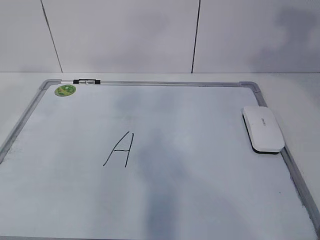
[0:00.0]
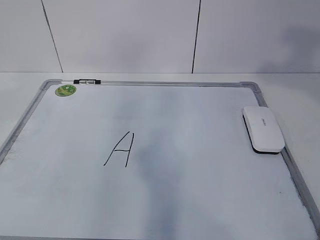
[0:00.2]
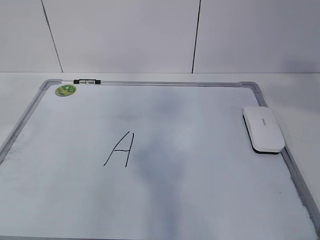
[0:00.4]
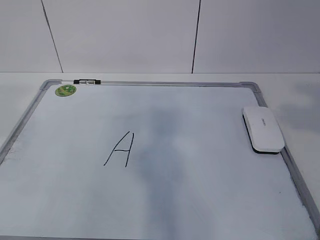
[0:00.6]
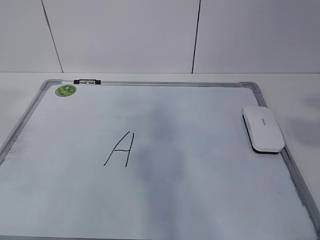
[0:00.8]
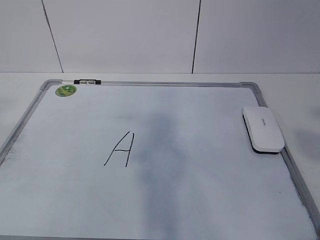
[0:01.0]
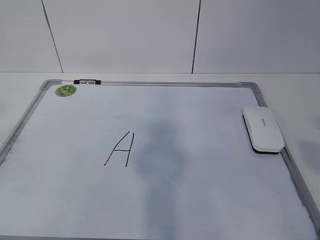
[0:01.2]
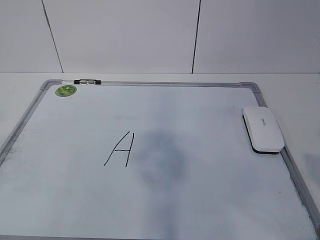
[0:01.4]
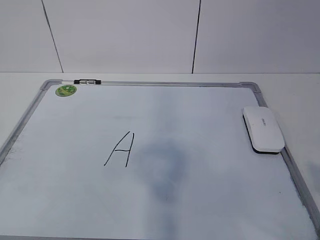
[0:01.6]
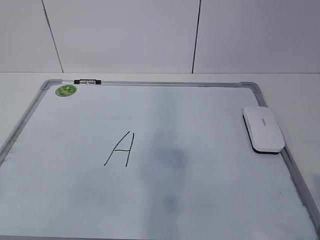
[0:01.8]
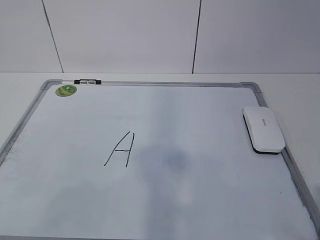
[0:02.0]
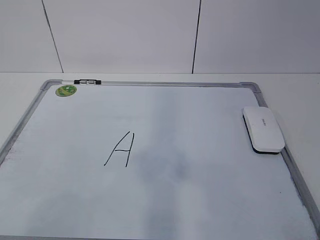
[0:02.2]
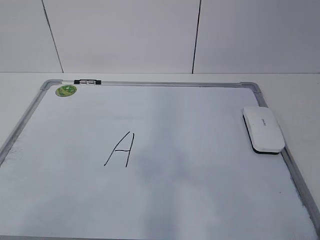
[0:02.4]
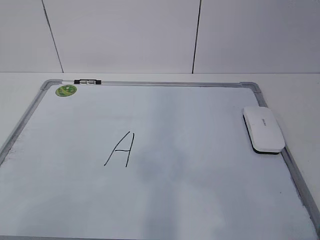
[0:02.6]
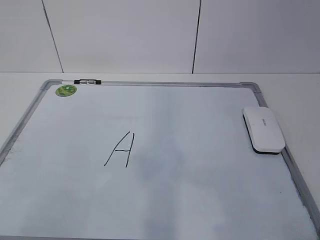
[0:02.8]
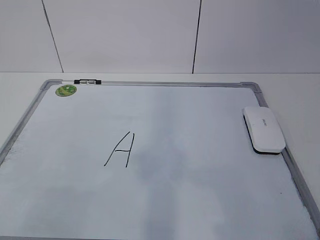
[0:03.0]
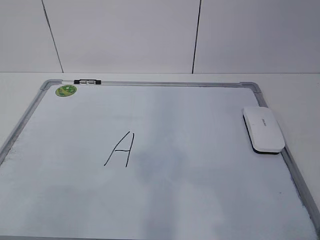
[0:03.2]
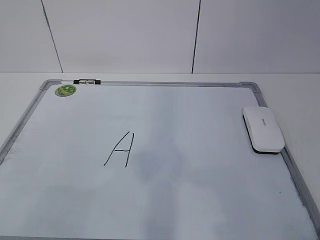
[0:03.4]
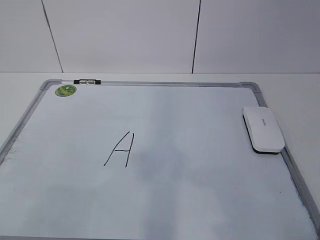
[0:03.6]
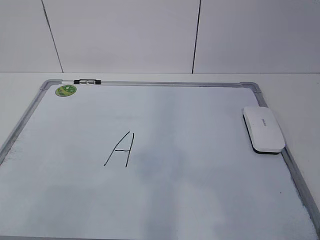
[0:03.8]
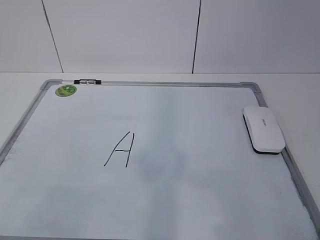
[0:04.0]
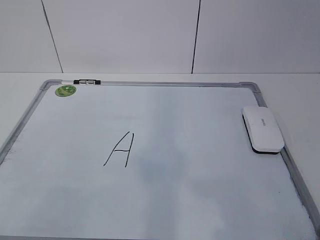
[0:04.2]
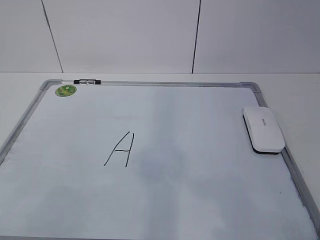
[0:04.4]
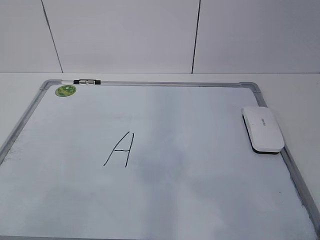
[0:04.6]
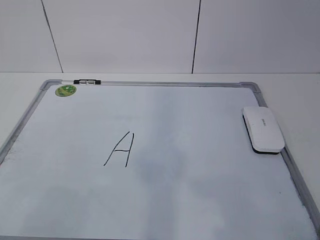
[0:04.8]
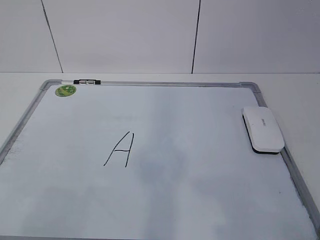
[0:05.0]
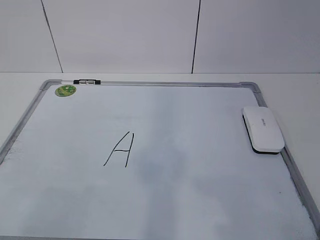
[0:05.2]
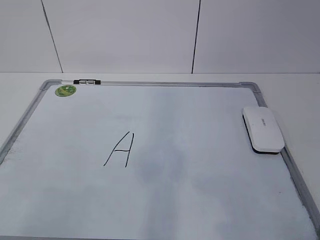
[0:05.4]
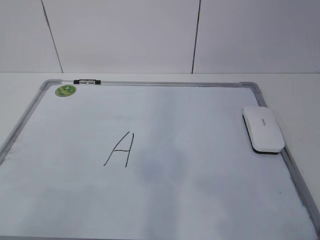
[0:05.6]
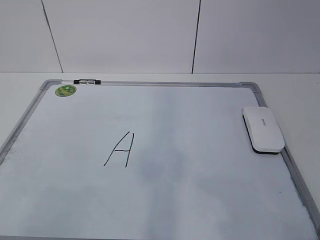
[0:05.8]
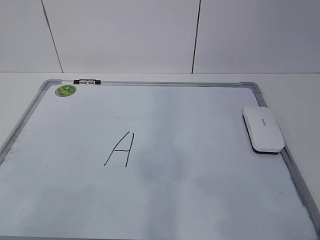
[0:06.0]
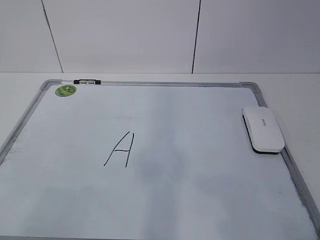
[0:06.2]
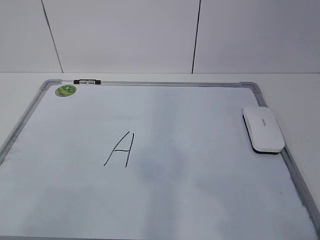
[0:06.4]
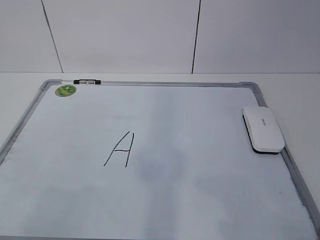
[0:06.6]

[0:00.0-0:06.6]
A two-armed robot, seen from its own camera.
Task of the whole recording: pick up the eraser on the blackboard and erase the letter "a".
0:00.0 to 0:01.6: The left gripper goes roughly 20 cm backward. Meanwhile the right gripper moves backward and downward, approximately 25 cm.
0:01.6 to 0:03.2: Both grippers travel together downward, about 10 cm.

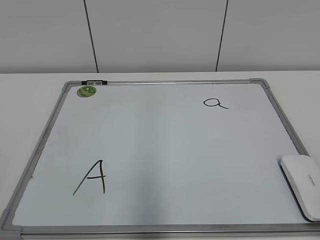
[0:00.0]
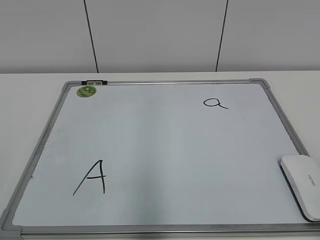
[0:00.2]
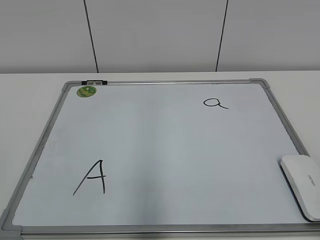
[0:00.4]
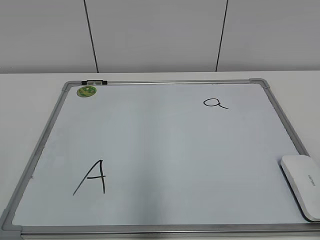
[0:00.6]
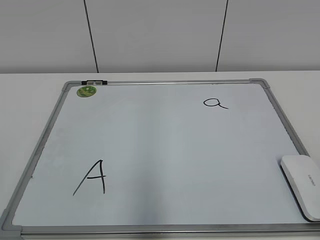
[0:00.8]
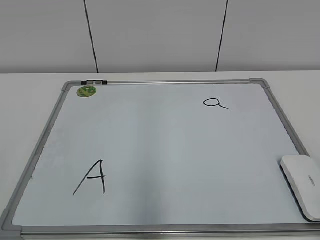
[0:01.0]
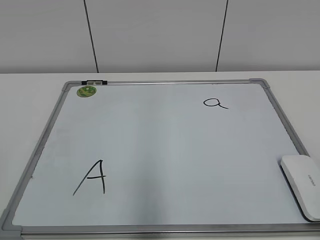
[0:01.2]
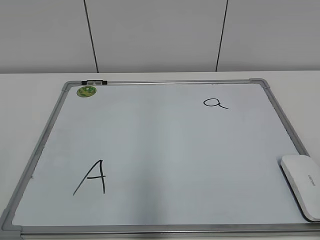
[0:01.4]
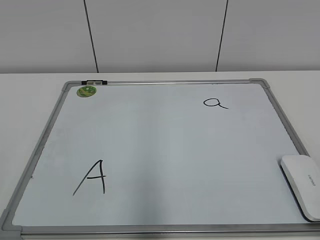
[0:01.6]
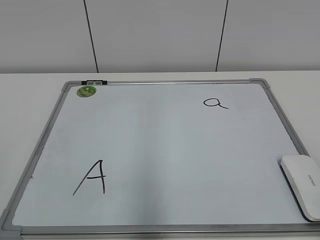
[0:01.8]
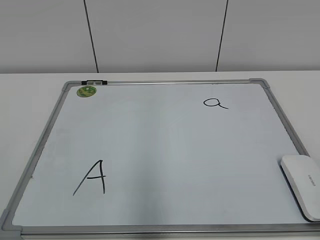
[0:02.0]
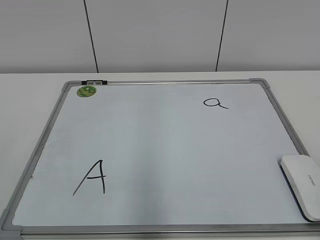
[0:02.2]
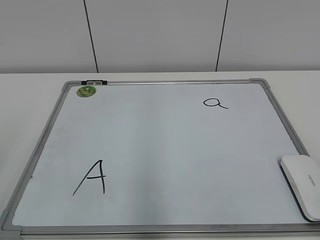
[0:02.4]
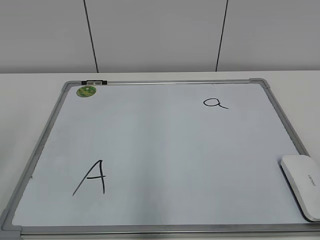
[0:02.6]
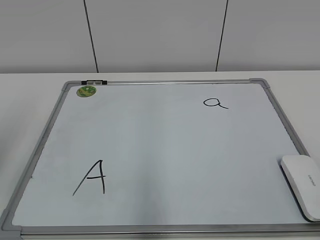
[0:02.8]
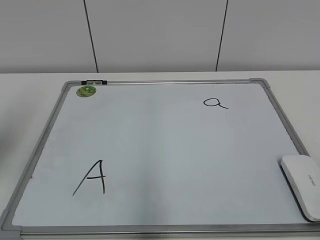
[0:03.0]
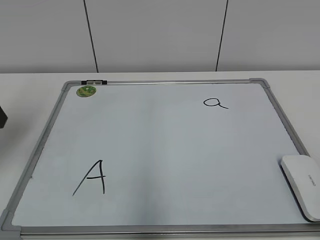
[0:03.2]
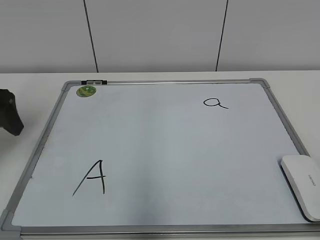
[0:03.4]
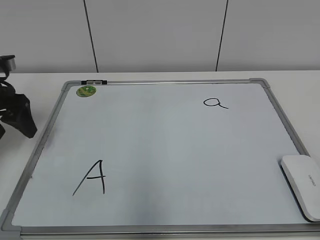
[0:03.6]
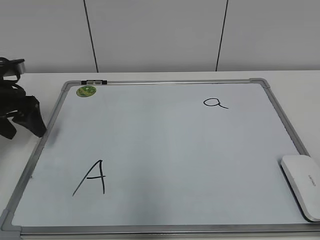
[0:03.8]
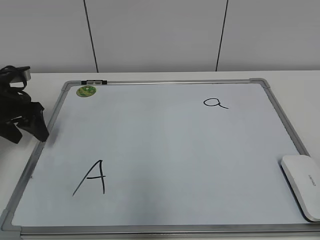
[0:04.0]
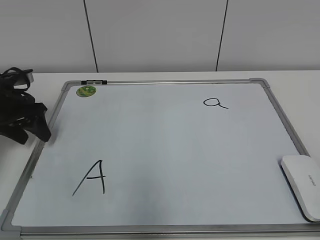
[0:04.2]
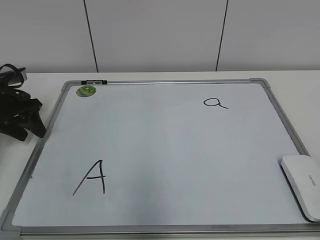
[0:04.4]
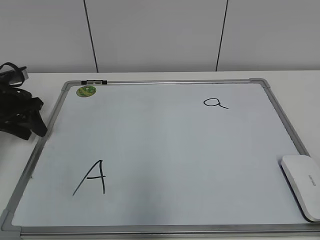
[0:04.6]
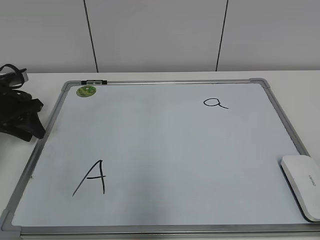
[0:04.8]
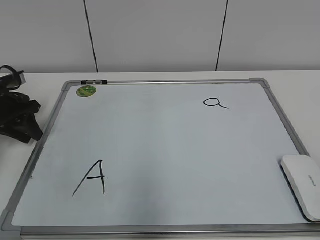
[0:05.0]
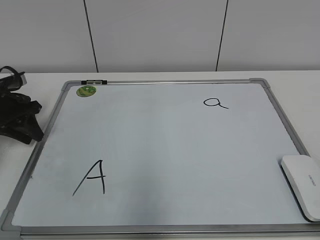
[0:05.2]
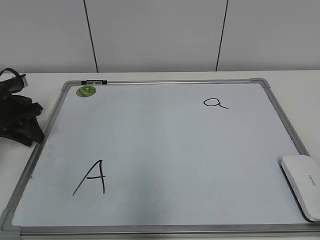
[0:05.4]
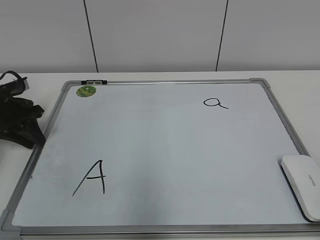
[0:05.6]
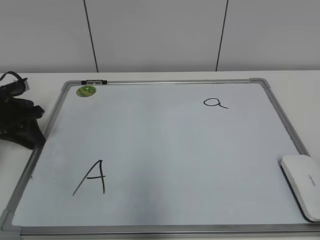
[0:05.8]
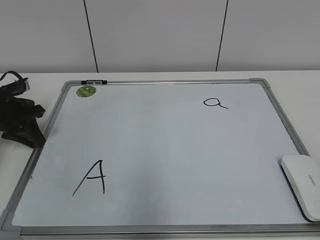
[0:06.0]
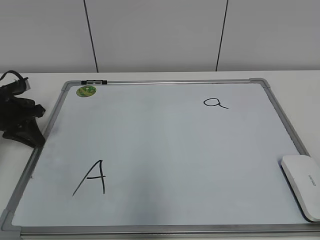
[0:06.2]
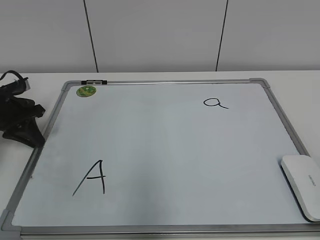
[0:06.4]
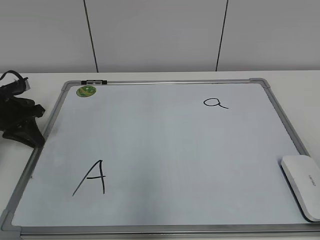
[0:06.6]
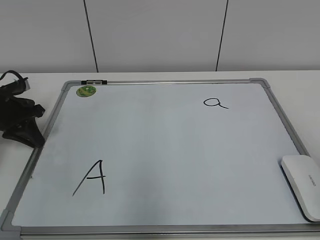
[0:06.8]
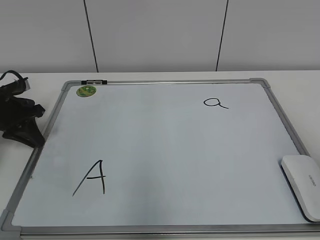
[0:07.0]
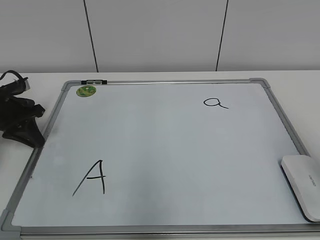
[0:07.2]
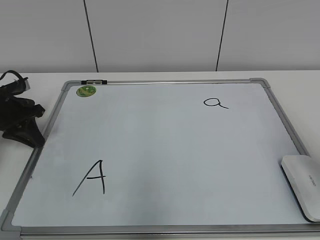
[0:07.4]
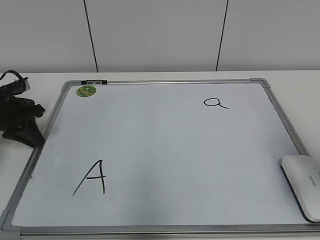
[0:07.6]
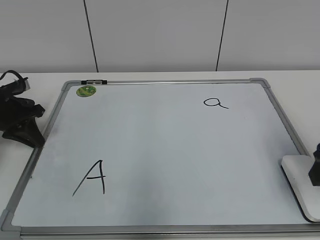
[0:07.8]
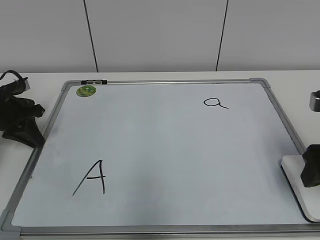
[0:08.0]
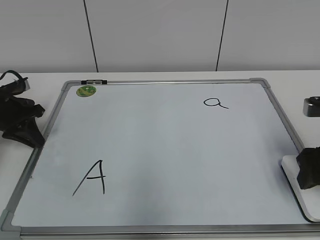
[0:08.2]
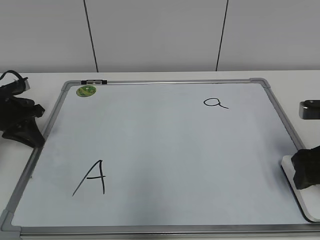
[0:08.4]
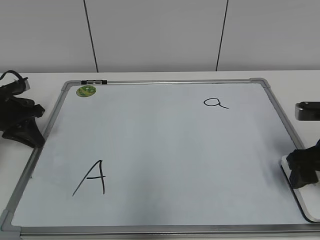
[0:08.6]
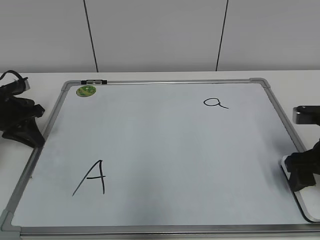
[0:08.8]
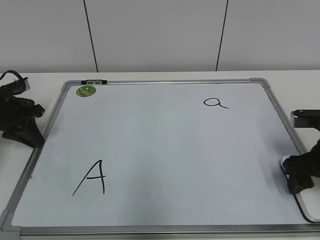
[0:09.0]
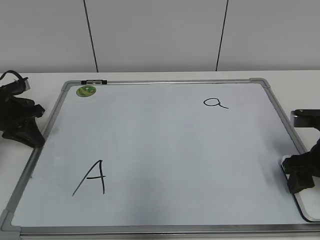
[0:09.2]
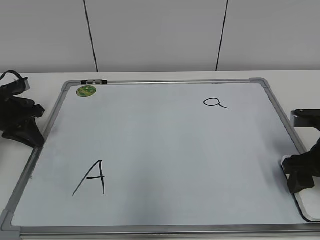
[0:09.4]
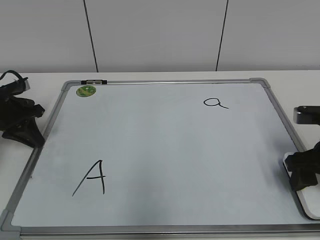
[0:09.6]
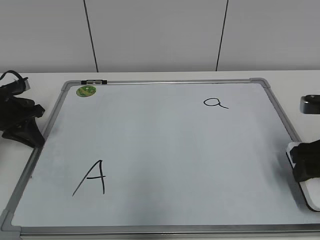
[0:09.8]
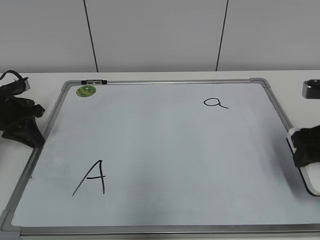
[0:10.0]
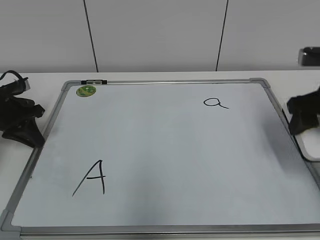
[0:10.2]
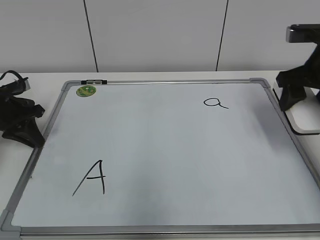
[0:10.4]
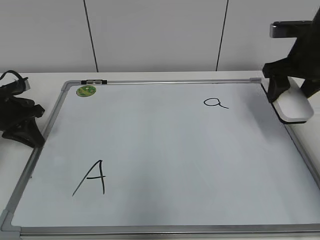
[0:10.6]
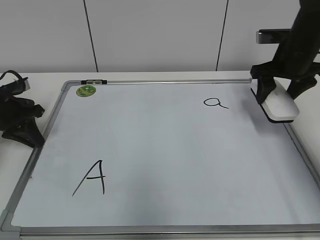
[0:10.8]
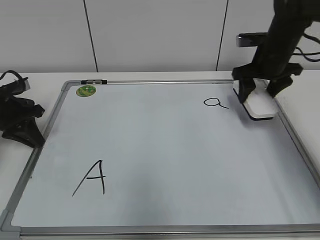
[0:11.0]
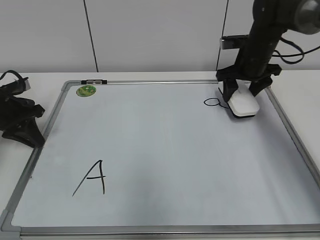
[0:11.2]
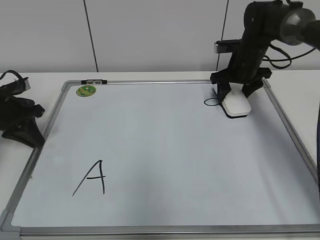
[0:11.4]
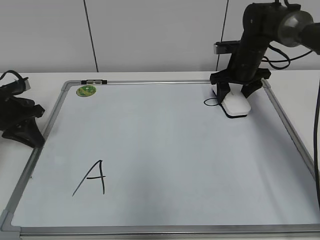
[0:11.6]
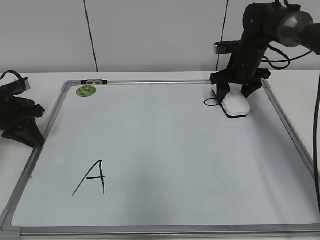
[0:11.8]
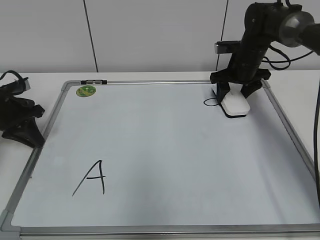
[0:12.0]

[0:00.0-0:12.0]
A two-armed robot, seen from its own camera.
Task of the whole recording: pick up the eraser on the blackboard and erase the letter "a".
Step, 0:00.0 to 0:06.6: Hold the drawing board steady with your left hand.
0:01.6 to 0:03.0: The left gripper moves forward, about 25 cm, and opens up.
0:03.0 to 0:04.4: The left gripper travels forward and downward by some 20 cm, and closes up.
0:04.4 to 0:06.0: The left gripper closes its fingers.
0:06.0 to 0:07.6: The right gripper goes roughly 20 cm forward.
0:07.6 to 0:09.0: The right gripper is displaced downward and forward by some 10 cm.
0:09.0 to 0:10.4: The right gripper is displaced upward and forward by roughly 15 cm.
0:10.4 to 0:12.0: The right gripper heads forward and downward, covering approximately 20 cm.

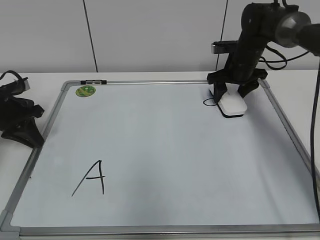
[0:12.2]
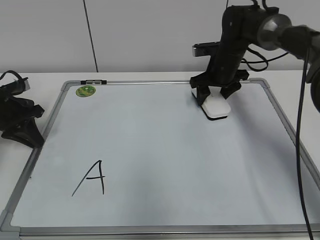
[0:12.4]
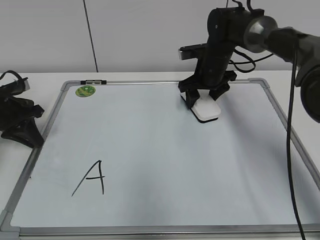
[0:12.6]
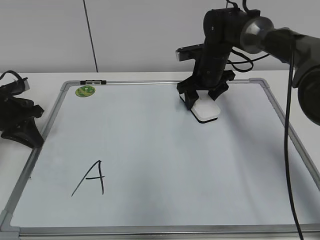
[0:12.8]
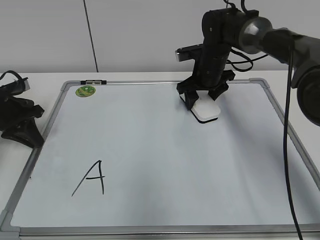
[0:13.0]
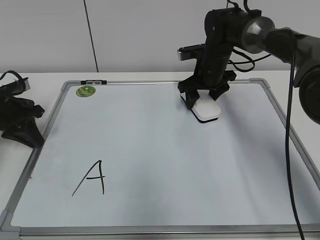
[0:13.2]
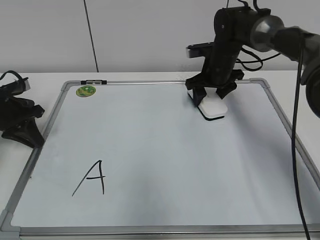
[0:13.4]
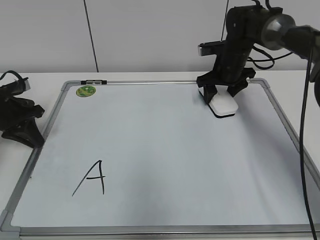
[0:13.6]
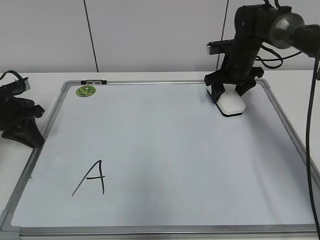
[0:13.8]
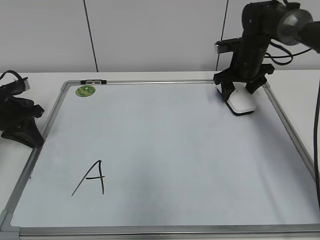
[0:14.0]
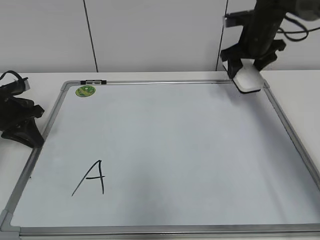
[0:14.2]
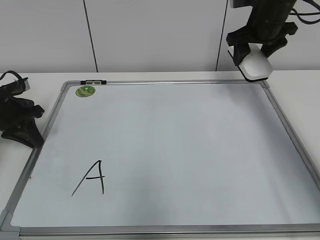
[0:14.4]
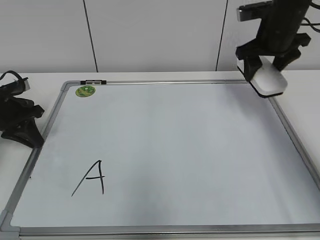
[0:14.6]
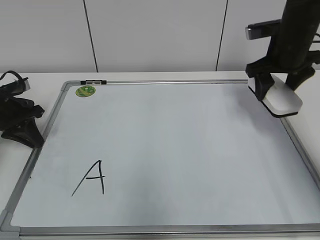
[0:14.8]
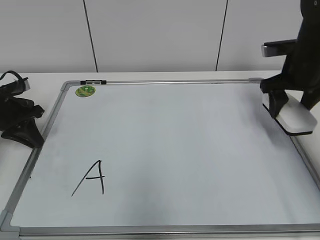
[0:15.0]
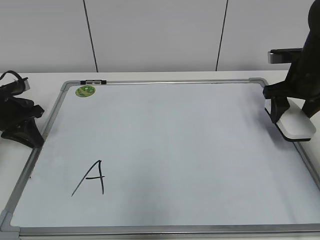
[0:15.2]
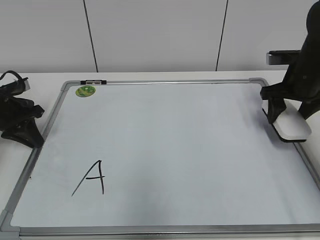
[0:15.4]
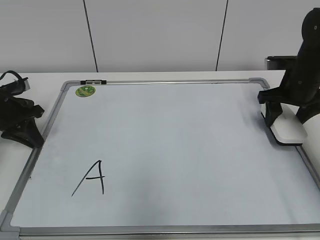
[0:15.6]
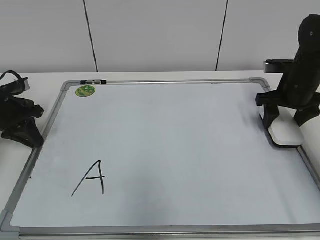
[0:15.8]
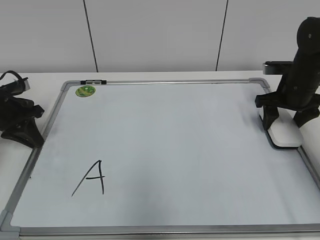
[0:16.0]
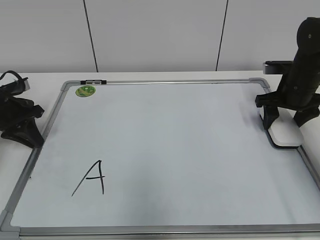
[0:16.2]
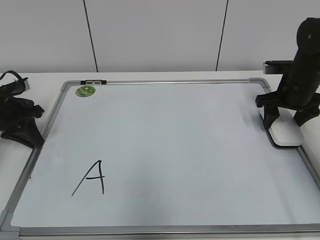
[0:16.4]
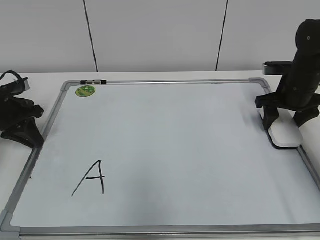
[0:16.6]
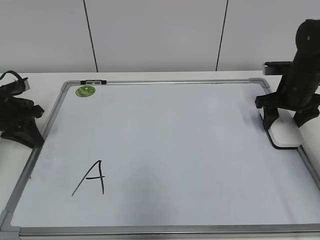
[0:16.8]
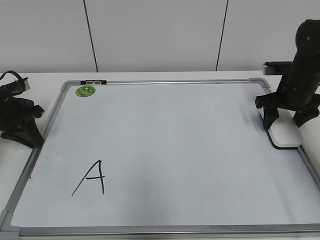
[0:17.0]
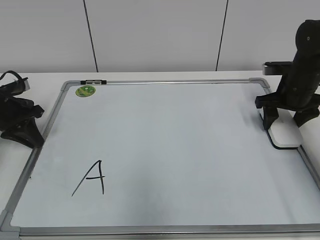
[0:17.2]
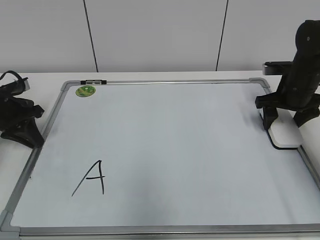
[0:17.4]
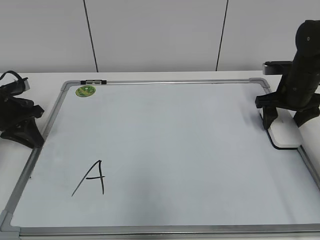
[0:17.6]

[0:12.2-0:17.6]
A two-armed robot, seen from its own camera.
Task of the whole recording: pick up the eraser on the blackboard and erase the letter "a".
Step, 0:14.2 to 0:16.2: Put down the eraser with your right hand.
0:13.6 to 0:15.0: The right gripper travels backward, to the right and upward by about 15 cm.
0:15.0 to 0:16.2: The right gripper is displaced downward by roughly 5 cm.
0:16.2 to 0:17.6: Both grippers stay about where they are.
